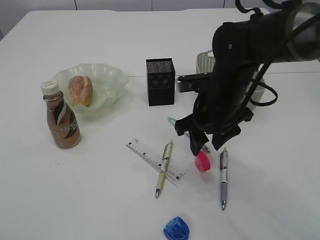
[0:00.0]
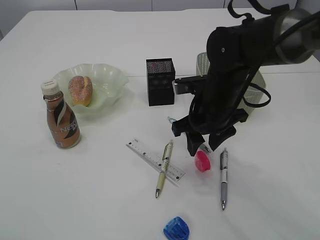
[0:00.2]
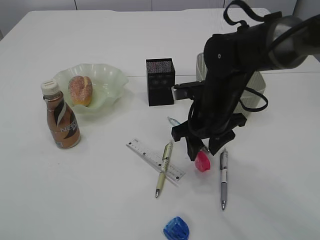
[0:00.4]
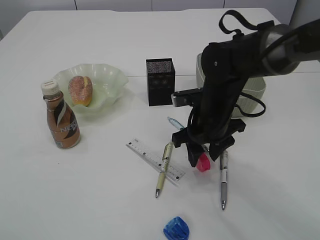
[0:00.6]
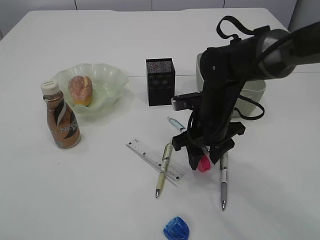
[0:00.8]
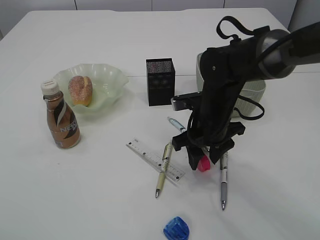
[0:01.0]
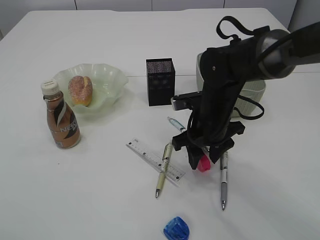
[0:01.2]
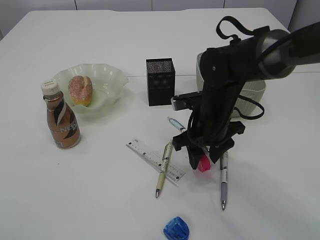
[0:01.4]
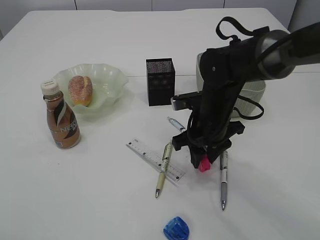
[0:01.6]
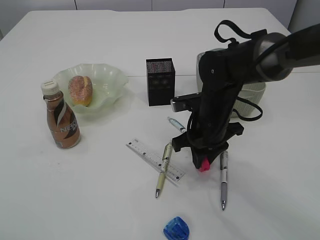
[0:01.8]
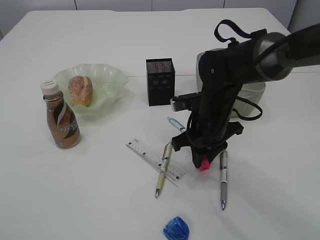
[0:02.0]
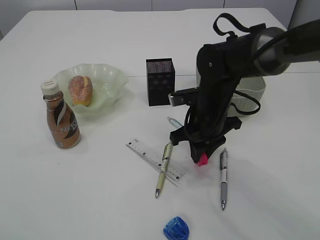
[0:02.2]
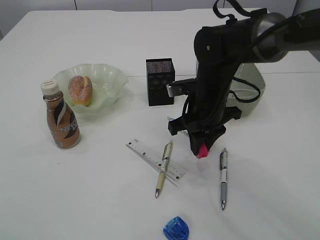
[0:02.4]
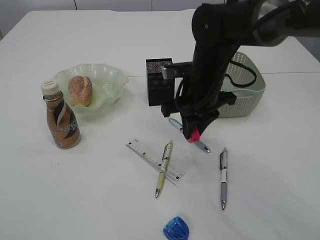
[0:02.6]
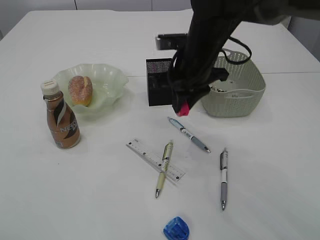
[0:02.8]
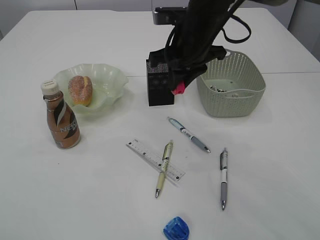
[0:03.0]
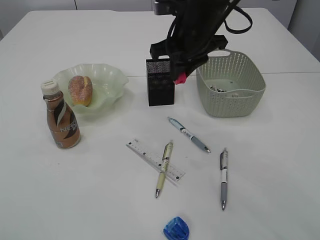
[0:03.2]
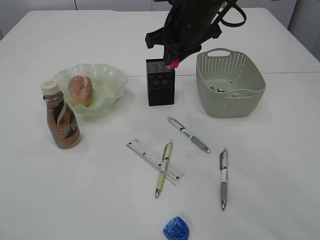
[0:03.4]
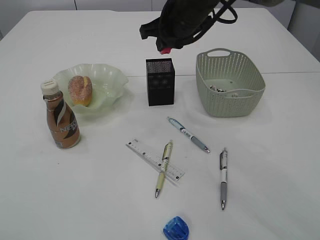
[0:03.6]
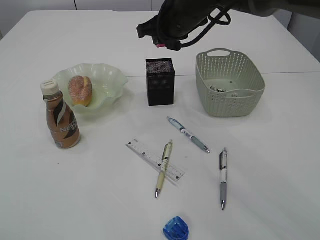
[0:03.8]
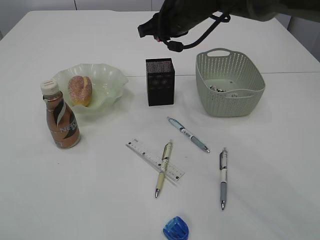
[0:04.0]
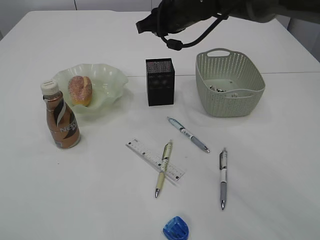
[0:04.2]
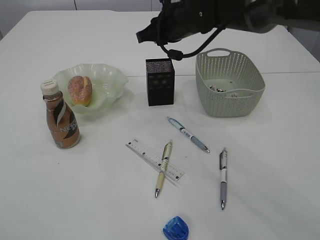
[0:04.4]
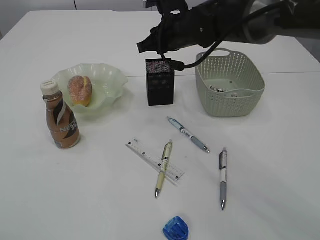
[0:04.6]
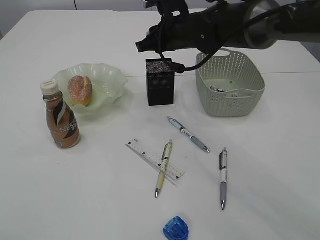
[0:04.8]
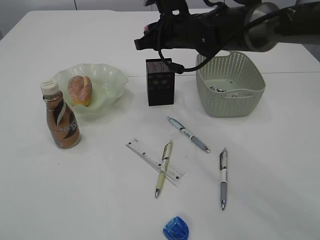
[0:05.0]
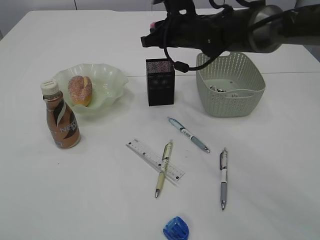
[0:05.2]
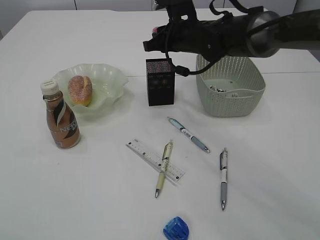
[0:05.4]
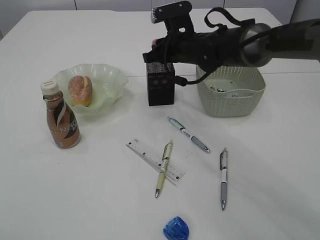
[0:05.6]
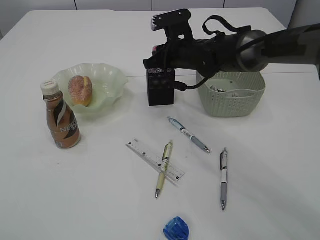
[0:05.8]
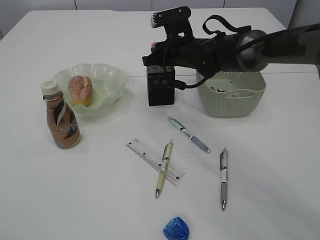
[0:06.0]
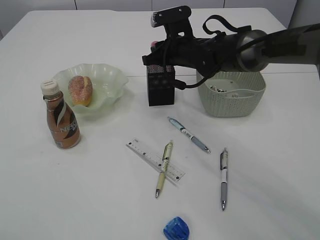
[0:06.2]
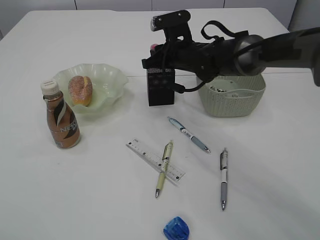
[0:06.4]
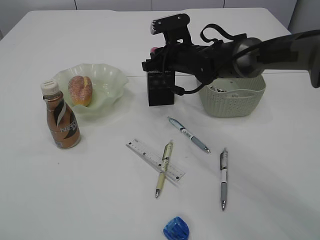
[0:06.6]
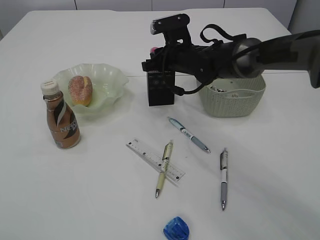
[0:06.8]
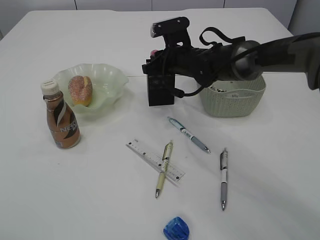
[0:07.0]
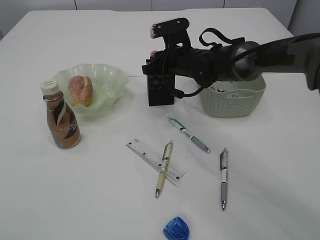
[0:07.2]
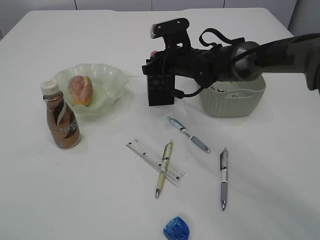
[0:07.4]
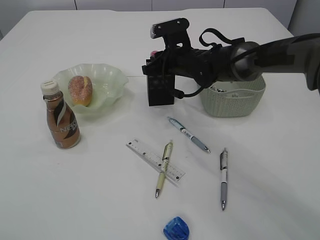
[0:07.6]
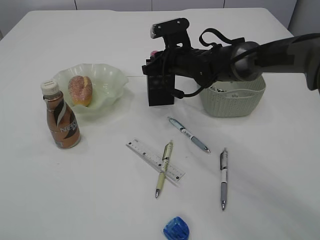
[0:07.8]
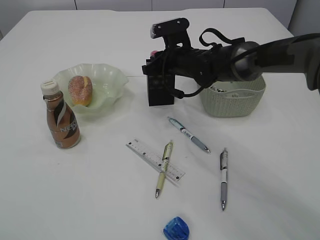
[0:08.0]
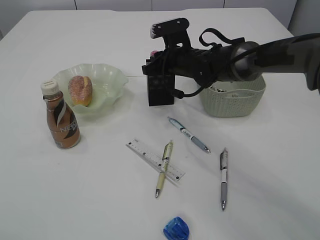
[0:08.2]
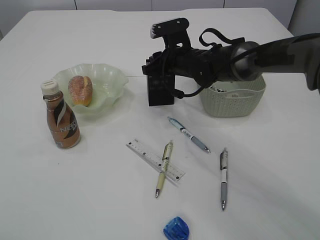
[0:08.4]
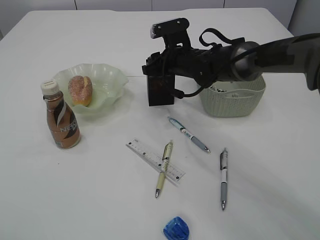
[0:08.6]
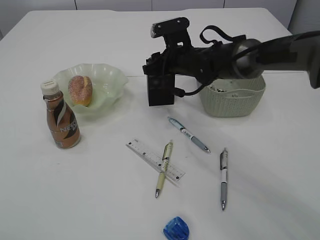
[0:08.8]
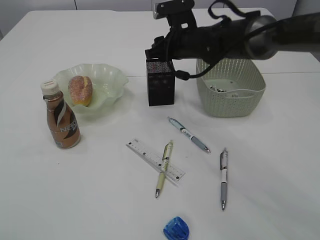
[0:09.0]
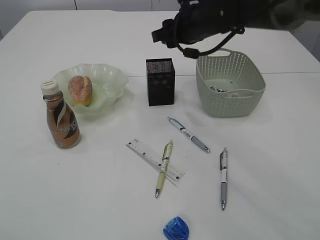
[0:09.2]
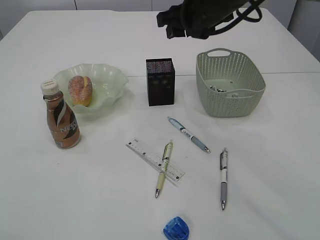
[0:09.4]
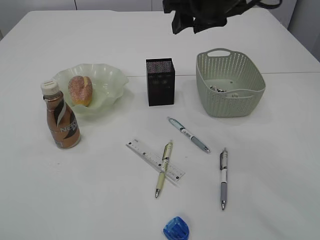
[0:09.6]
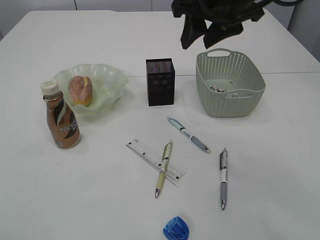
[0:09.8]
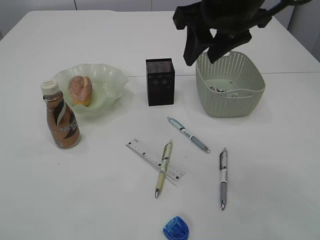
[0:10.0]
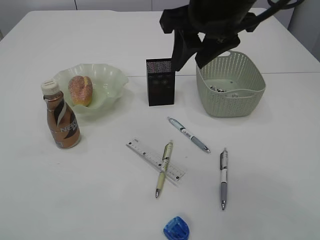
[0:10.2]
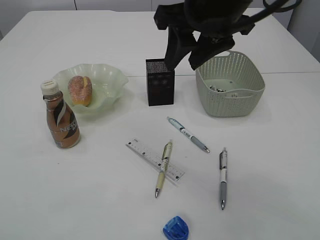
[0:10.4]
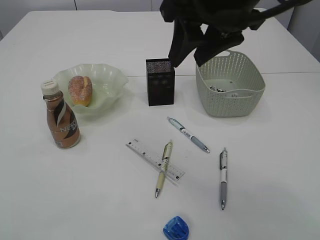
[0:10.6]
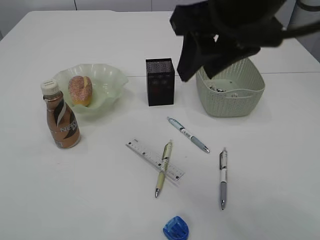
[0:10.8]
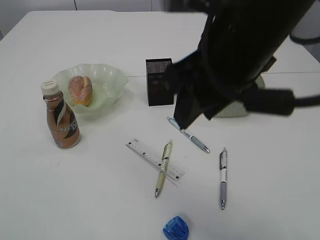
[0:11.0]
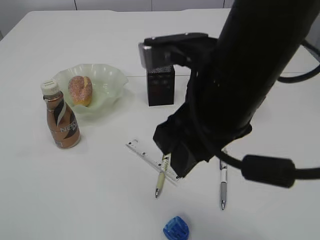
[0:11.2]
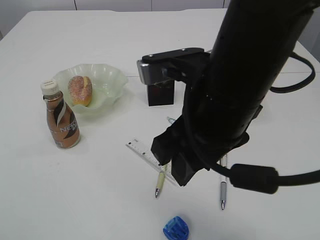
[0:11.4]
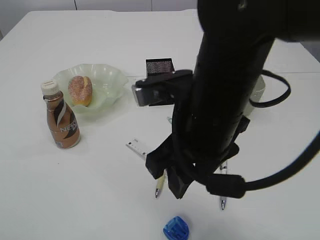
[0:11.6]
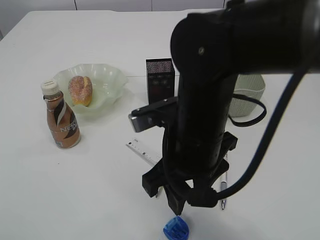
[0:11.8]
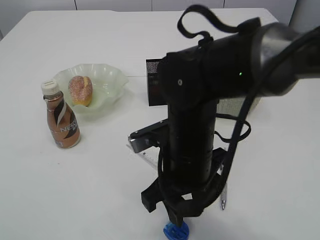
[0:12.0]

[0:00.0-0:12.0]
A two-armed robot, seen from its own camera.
Step, 0:00.0 to 0:02.4: Pick up the red pencil sharpener.
Step, 0:02.6 to 0:09.2: Place the red pencil sharpener into the pen holder.
0:00.0 to 0:01.6: The grippers make only small movements.
0:01.6 to 0:03.0: The right gripper travels upward and forward by some 15 cm.
0:03.0 to 0:04.4: The right gripper shifts some 5 cm forward.
0:04.4 to 0:06.0: The right gripper goes about 5 cm downward.
0:06.0 to 0:07.6: The grippers move only a little.
0:07.6 to 0:09.0: The right gripper opens its fingers.
0:09.0 to 0:10.4: The right gripper moves backward and upward, about 20 cm.
0:10.4 to 0:12.0: The right gripper shifts about 20 cm downward and backward.

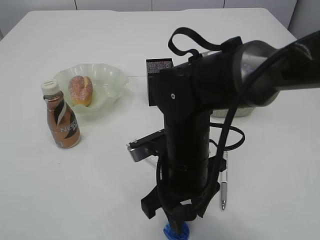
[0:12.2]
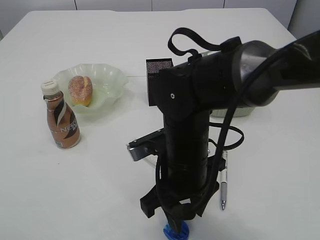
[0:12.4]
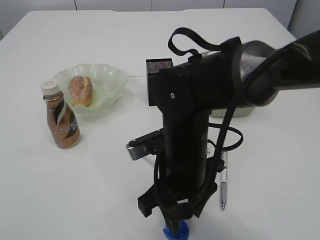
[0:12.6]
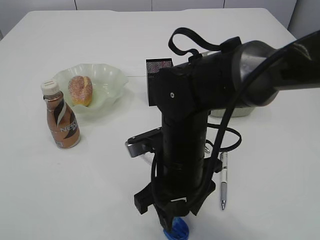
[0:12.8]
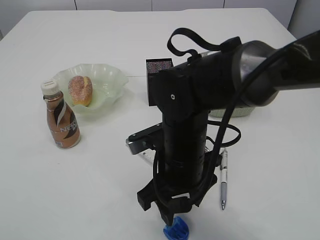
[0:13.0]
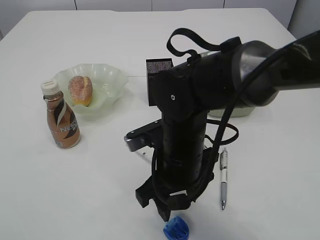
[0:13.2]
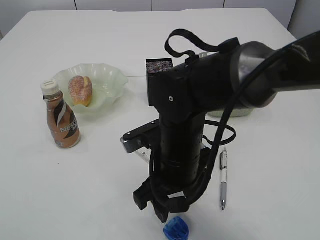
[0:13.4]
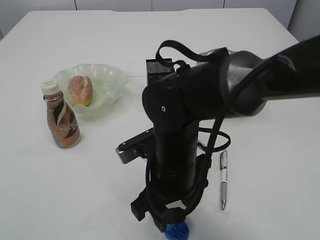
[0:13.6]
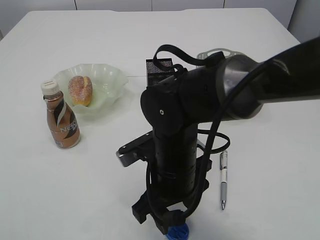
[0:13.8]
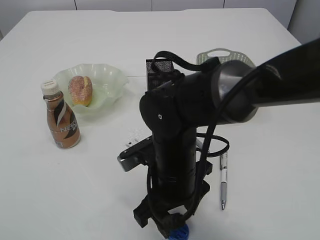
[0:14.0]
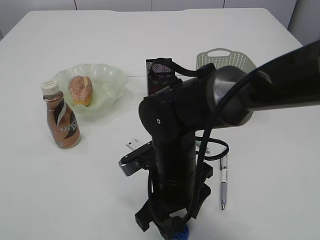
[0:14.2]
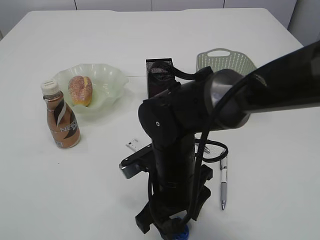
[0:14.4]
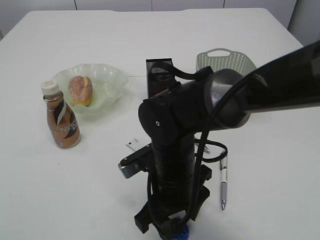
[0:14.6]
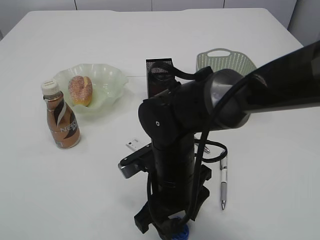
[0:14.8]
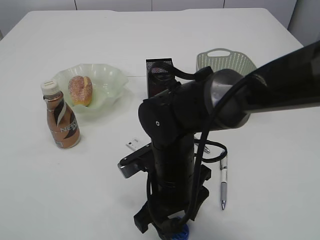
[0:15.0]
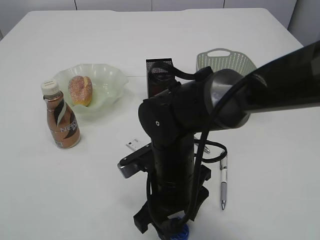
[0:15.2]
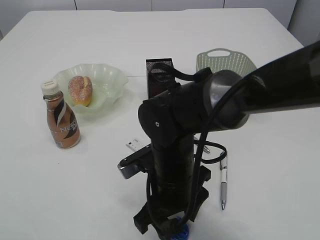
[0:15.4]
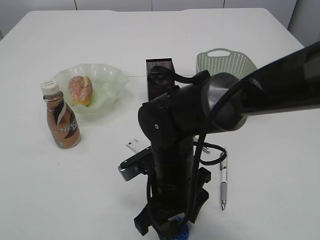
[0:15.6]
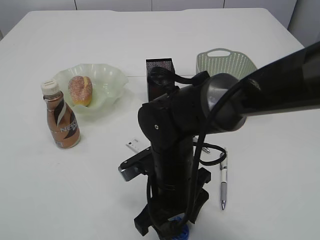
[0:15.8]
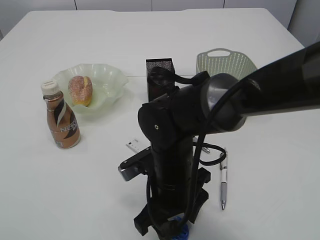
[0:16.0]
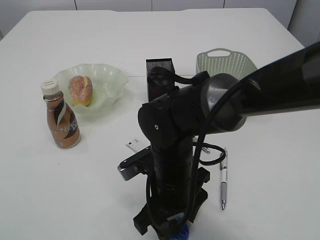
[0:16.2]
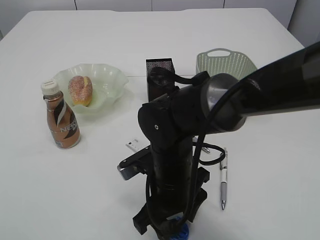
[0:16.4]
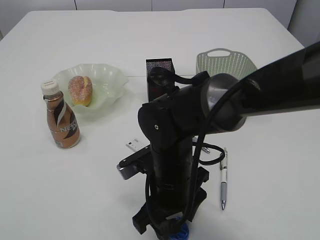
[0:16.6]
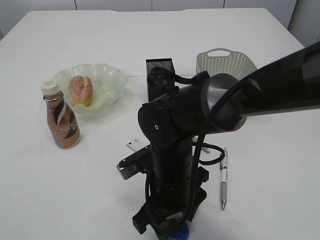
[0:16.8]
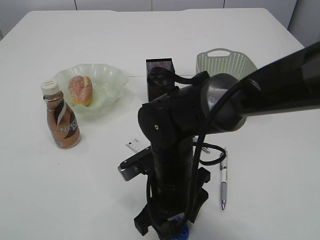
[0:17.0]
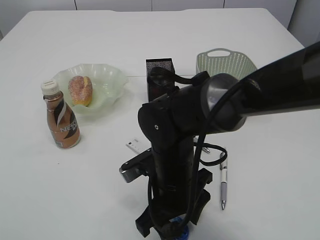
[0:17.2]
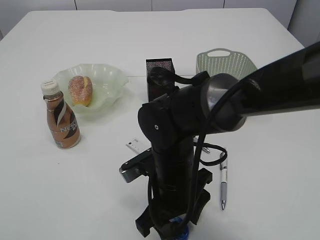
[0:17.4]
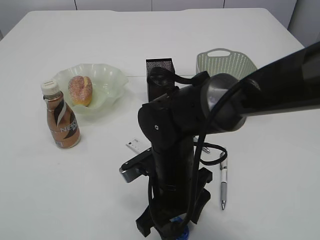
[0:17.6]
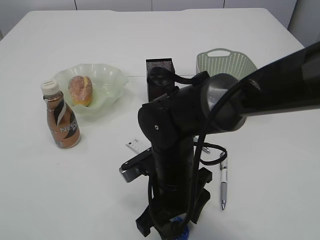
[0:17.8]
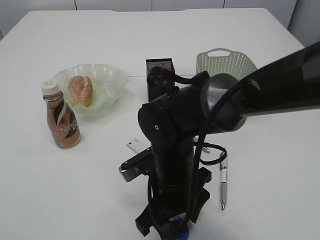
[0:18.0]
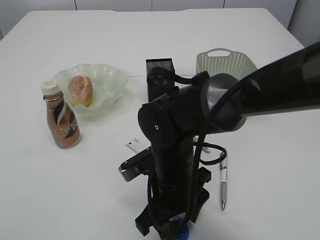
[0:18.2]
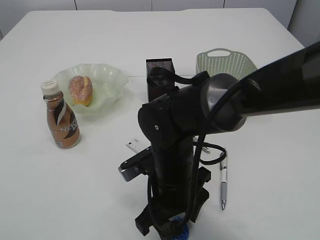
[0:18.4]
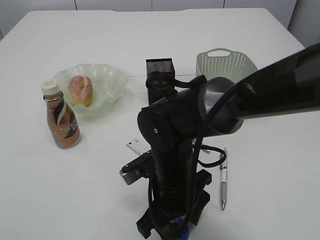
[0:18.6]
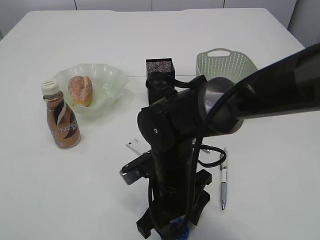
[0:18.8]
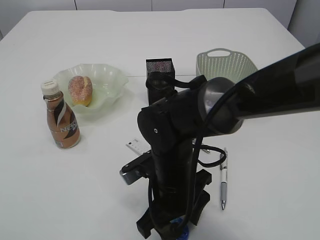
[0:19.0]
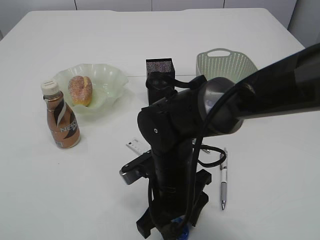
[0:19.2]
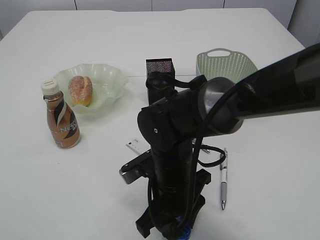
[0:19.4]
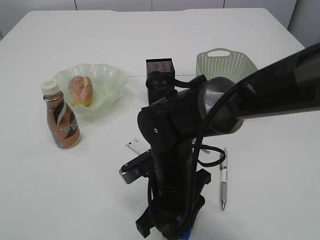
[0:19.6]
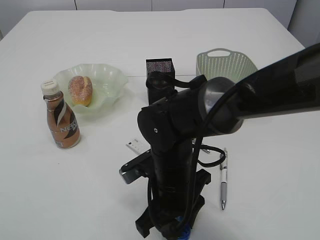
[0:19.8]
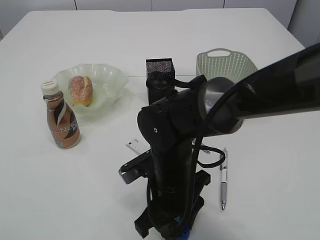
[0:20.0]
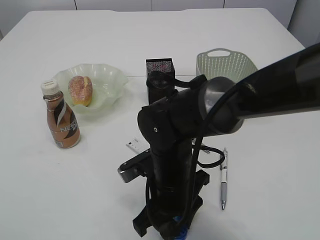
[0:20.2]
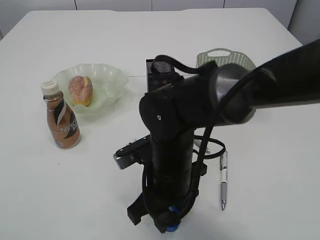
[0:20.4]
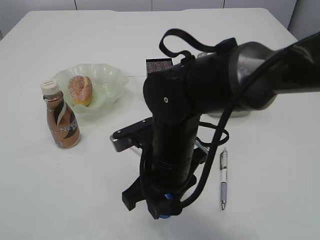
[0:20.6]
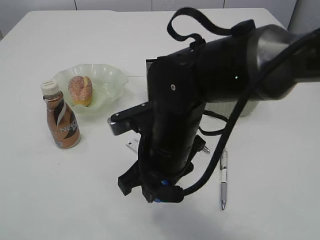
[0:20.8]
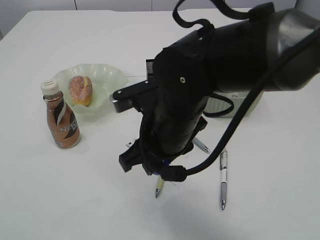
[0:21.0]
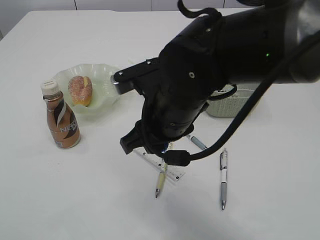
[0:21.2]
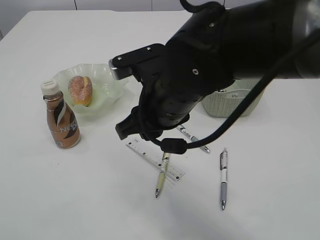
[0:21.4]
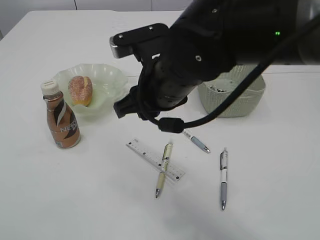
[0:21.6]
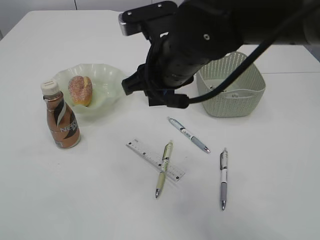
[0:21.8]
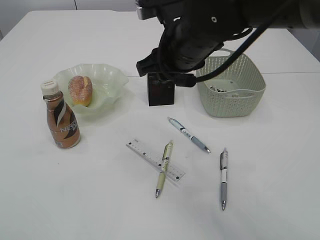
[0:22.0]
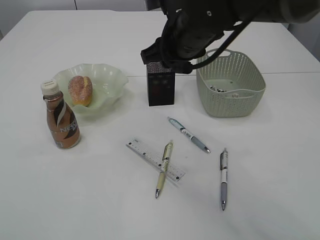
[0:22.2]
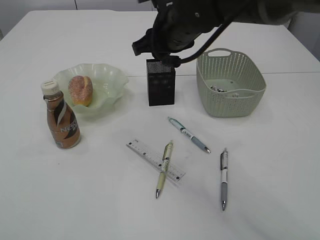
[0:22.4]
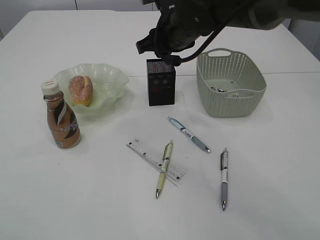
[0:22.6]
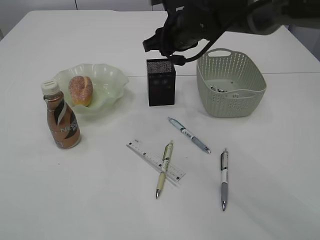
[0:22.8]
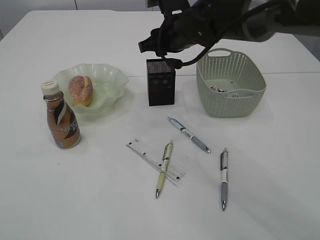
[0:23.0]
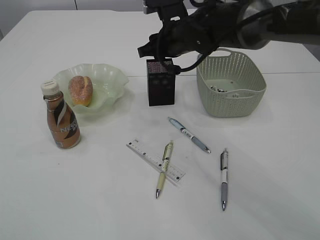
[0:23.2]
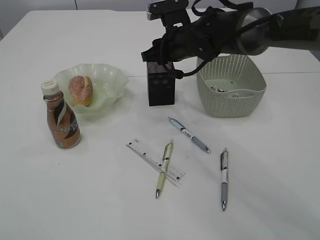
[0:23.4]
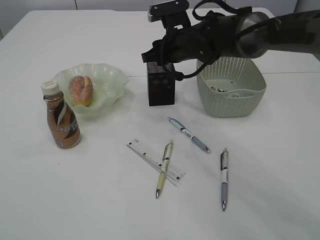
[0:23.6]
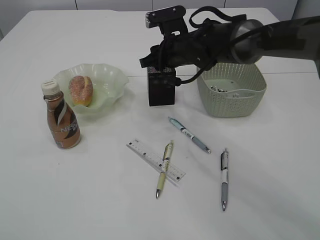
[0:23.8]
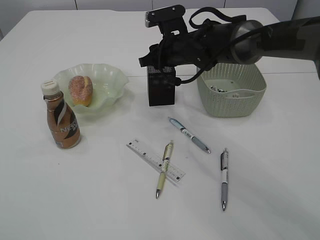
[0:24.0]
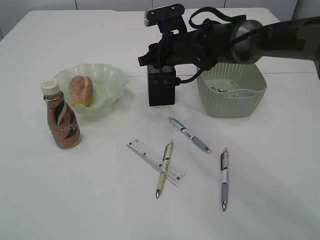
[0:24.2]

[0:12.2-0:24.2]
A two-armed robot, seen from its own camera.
Step, 0:12.2 to 0:21.0: Pick up the blue pencil sharpener.
0:12.2 to 0:15.2: The grippers move only a little.
0:15.2 to 0:18.2: The two grippers keep their place.
0:18.2 to 0:19.8: The right gripper closes up.
0:19.8 to 0:21.2: The right gripper is displaced upward by approximately 10 cm.
0:21.2 to 0:22.6: The right gripper moves forward, some 15 cm.
0:22.6 to 0:24.2: The right gripper heads downward and forward, covering some 10 cm.
